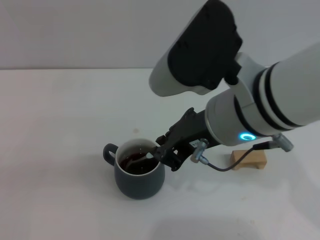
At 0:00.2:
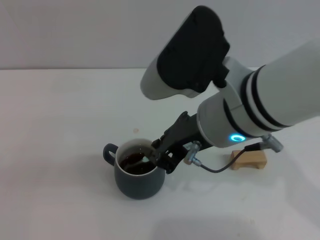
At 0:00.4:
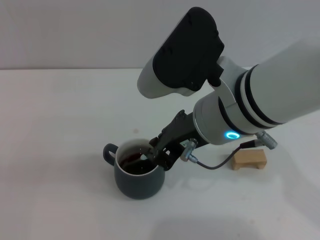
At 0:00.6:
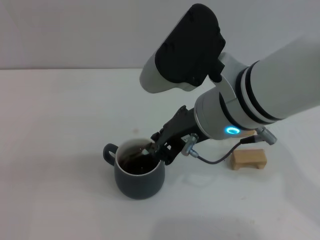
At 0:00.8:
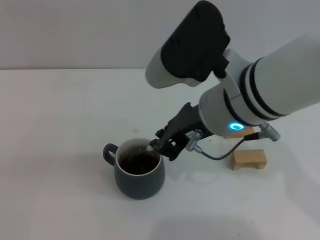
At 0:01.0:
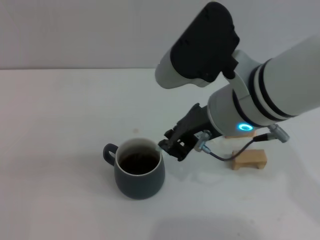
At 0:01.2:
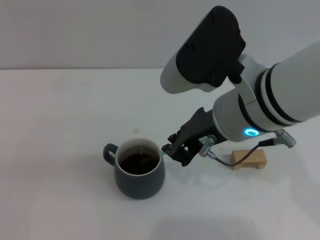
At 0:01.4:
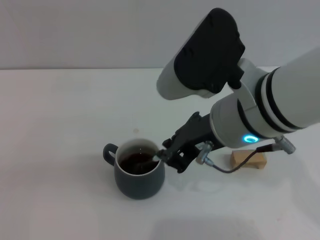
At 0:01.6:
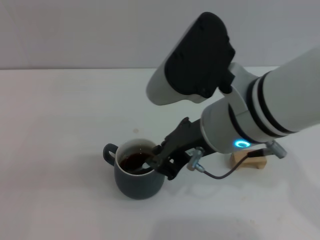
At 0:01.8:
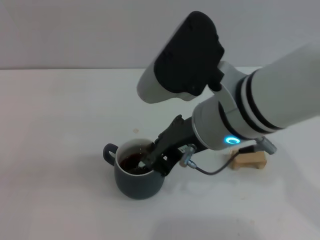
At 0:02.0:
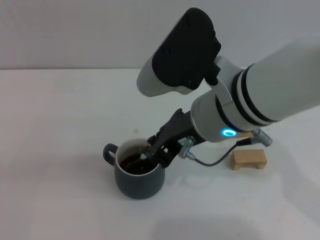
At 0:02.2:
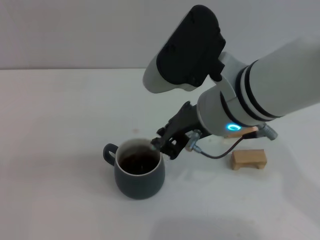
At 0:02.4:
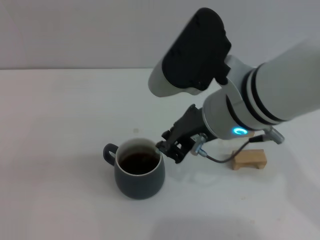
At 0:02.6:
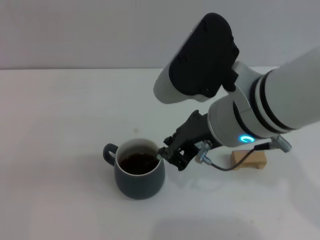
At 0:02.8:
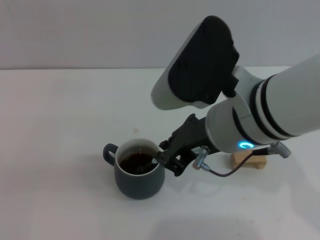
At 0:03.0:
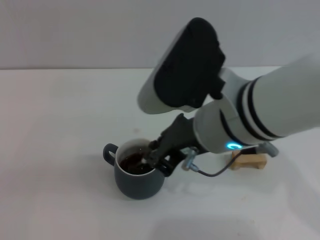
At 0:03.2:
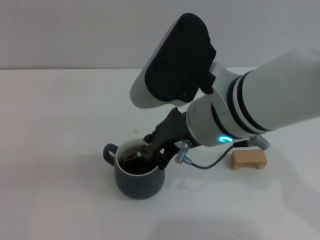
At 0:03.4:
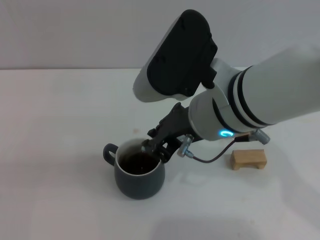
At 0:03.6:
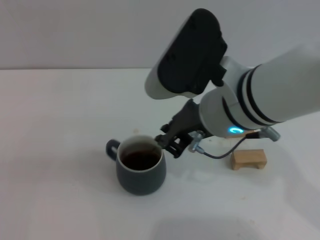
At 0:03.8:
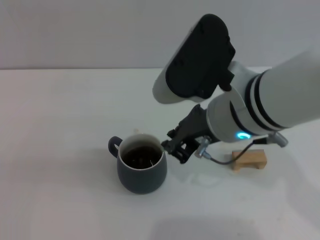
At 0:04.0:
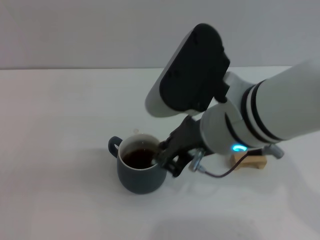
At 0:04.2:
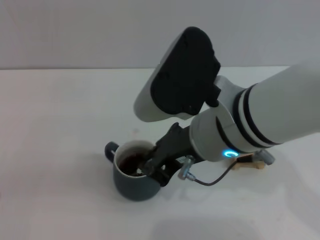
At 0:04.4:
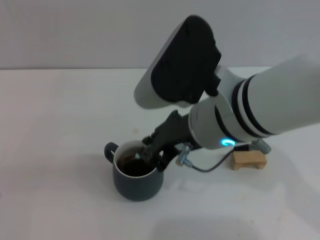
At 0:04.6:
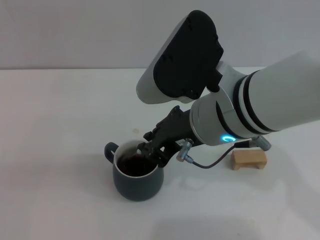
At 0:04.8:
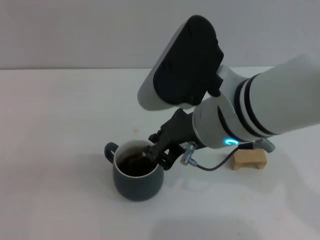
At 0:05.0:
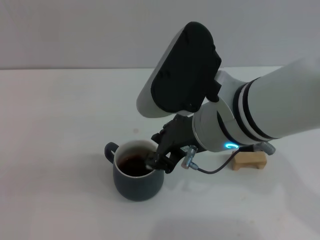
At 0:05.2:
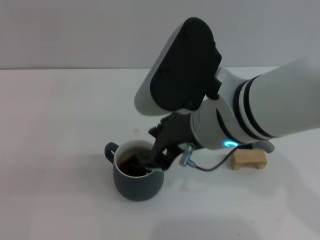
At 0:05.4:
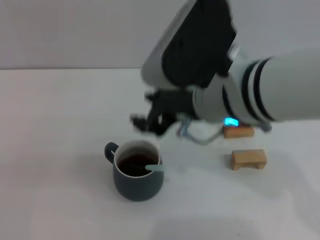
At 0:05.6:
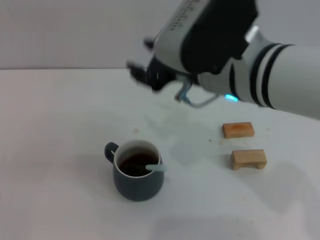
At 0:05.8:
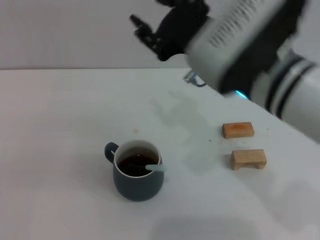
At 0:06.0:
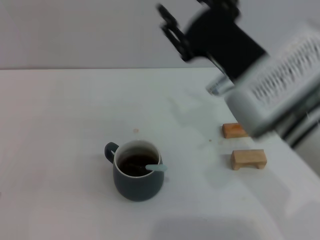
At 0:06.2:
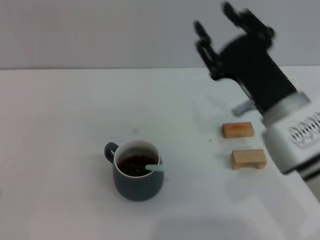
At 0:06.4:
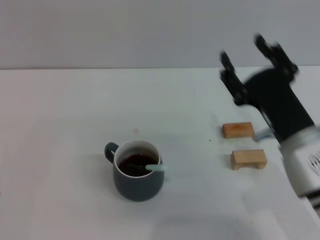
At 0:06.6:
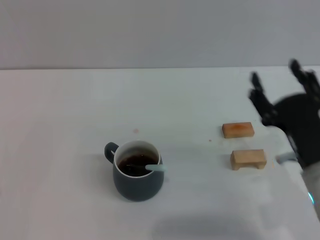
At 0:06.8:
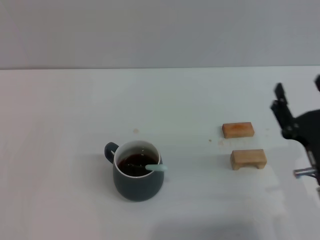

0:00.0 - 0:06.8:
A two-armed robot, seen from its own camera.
Task of the whole recording: Move the grey cup to the center, lift the blue spoon, stir it three times in the cup, and put the spoon into the cup.
Step, 0:00.0 - 0:05.2: Stir the coffee in the cup with the right gripper.
0:00.0 - 0:04.0: There are only small adjustments of the grippers.
0:04.0 - 0:05.4: The right gripper opens up.
0:05.4 - 0:06.8: The right gripper is displaced downward, to the right and backward by some 25 cm, and opens.
